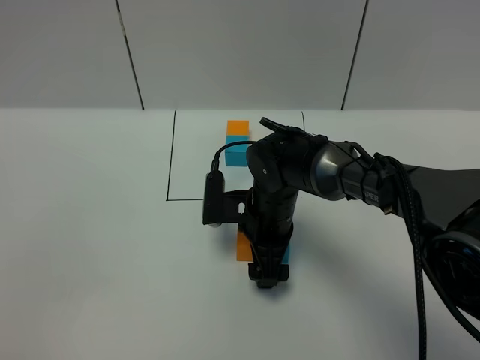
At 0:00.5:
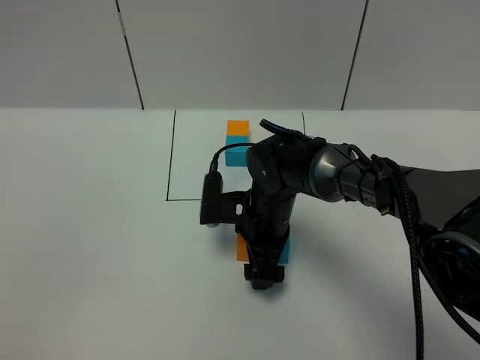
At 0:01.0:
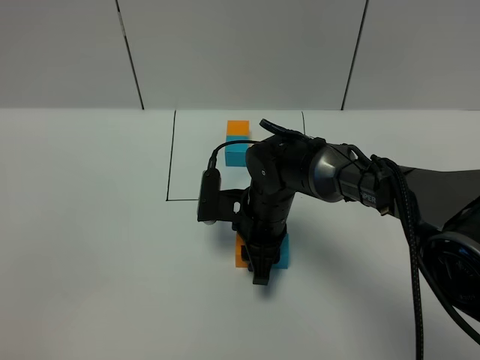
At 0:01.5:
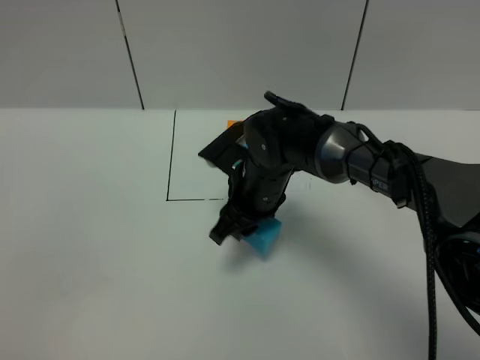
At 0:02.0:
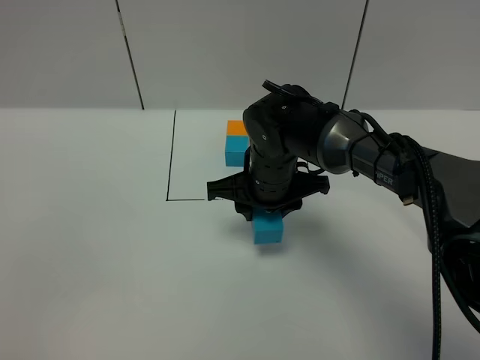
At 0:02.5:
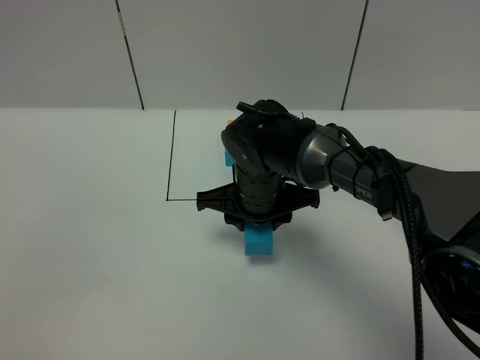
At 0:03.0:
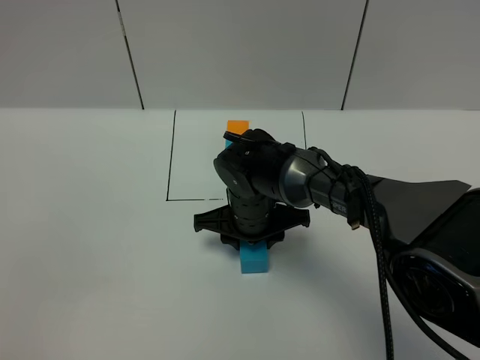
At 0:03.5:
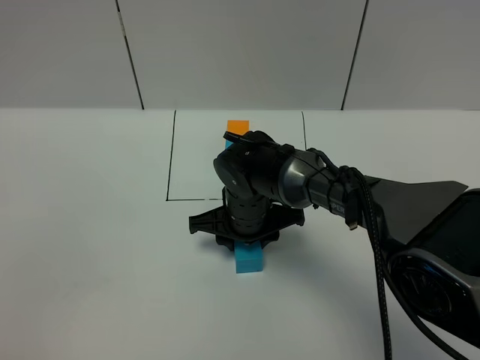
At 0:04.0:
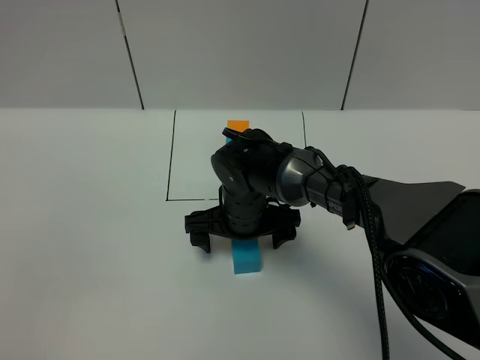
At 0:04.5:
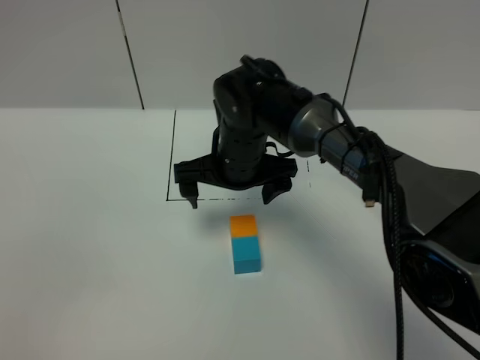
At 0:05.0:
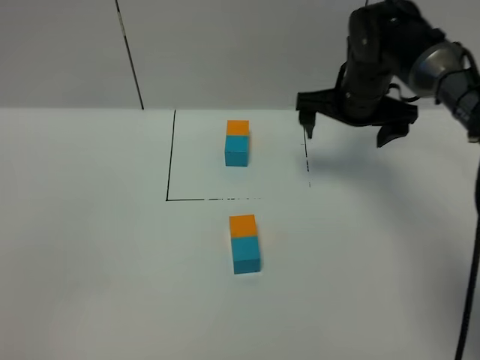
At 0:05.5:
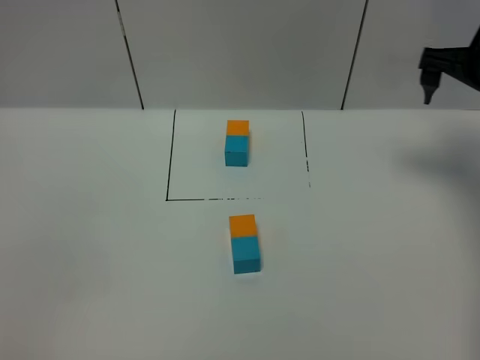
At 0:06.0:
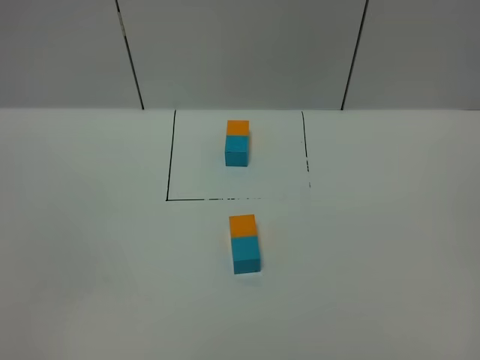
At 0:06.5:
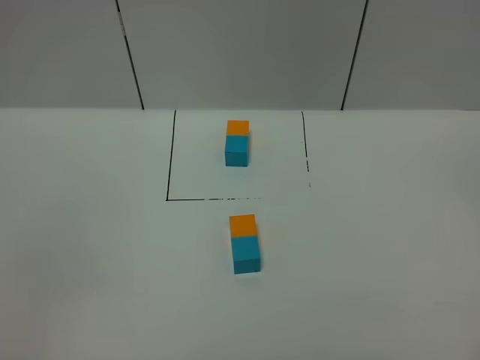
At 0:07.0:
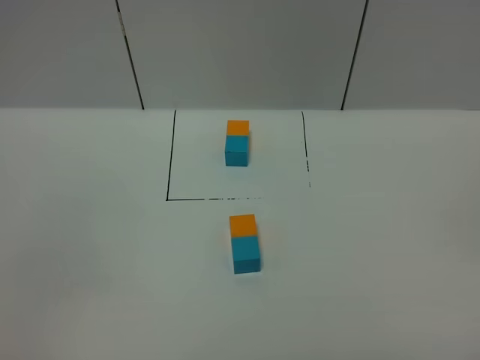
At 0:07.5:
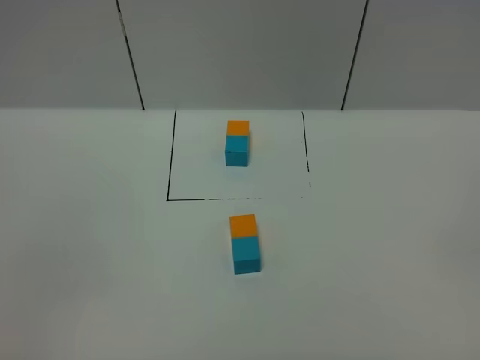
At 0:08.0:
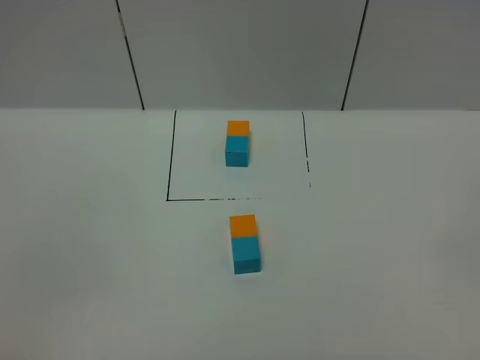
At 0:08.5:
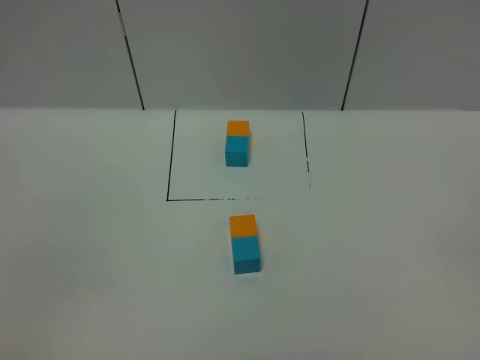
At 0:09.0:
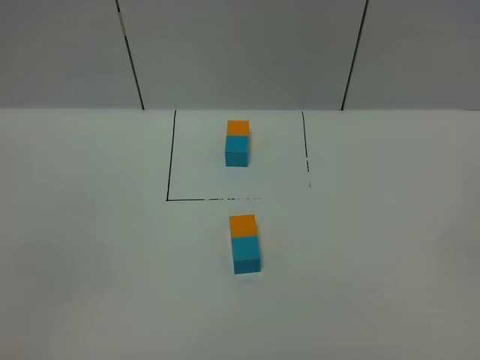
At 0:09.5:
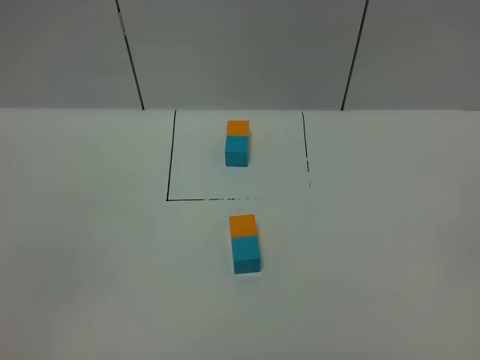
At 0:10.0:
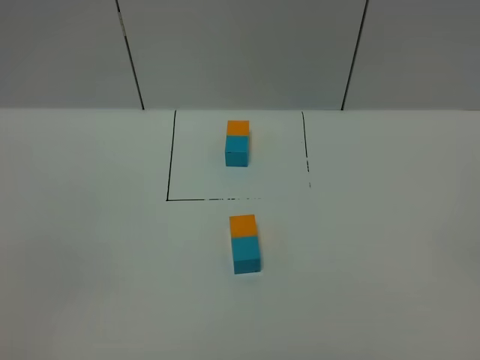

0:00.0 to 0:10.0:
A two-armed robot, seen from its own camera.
Task of the whole recording: According to the building block template in front, assemble the scattered blocks together.
Step, 0:00.0 to 0:04.5: Adjust the pose of the building blocks.
0:00.0 to 0:02.0: The right gripper goes some 5 cm upward, and closes up.
0:02.0 to 0:04.0: The right gripper shifts roughly 5 cm downward, and opens.
0:04.0 to 0:06.0: The right gripper moves to the right and upward, approximately 40 cm.

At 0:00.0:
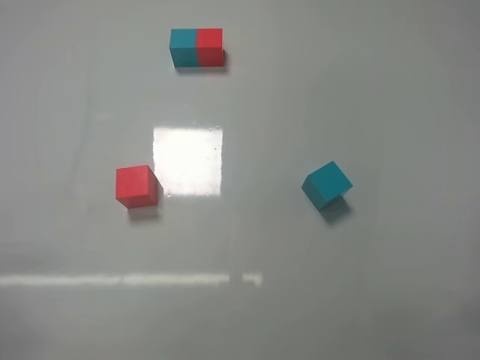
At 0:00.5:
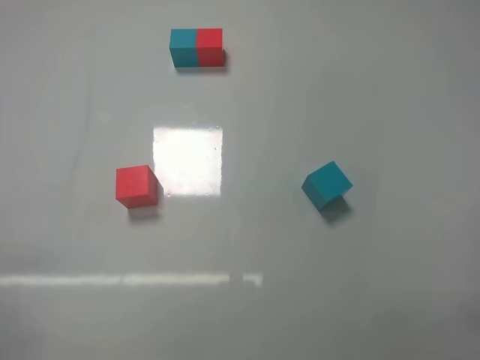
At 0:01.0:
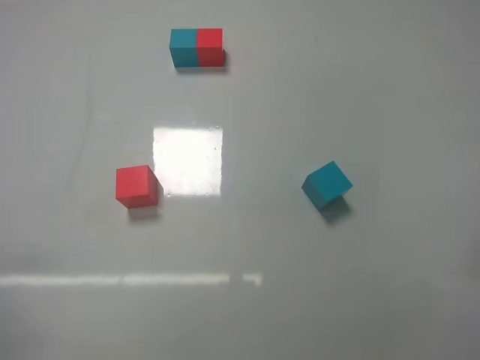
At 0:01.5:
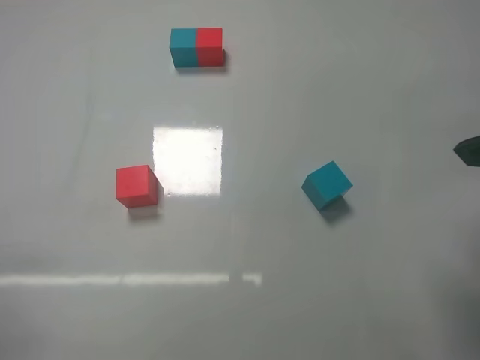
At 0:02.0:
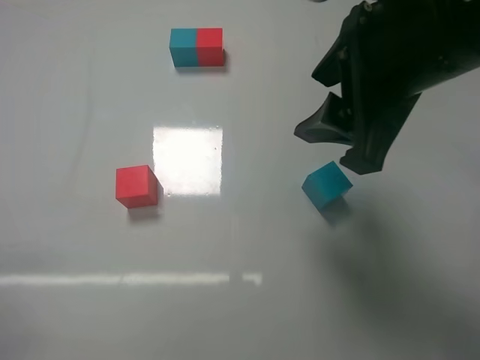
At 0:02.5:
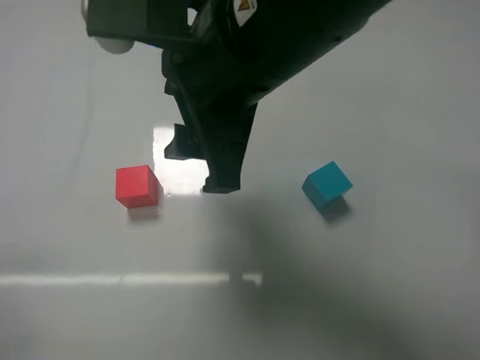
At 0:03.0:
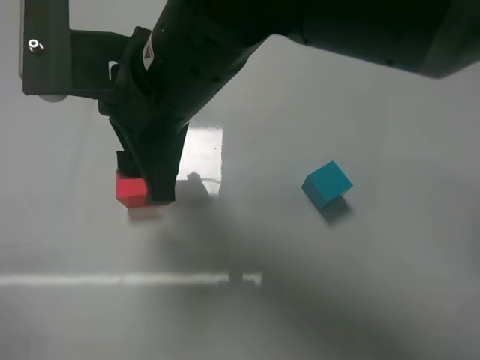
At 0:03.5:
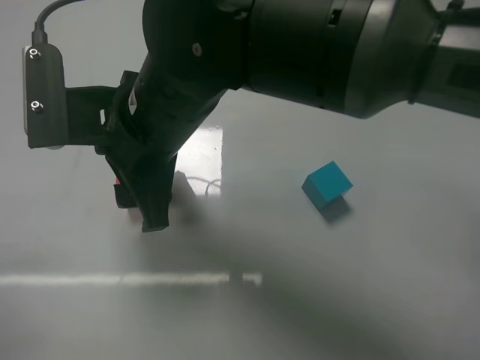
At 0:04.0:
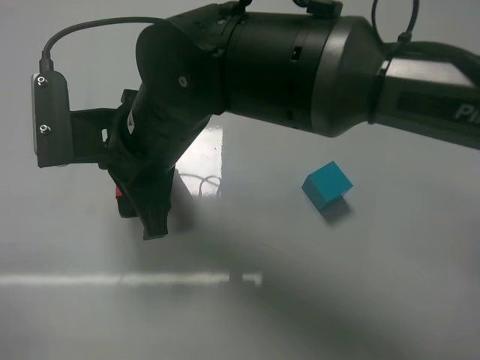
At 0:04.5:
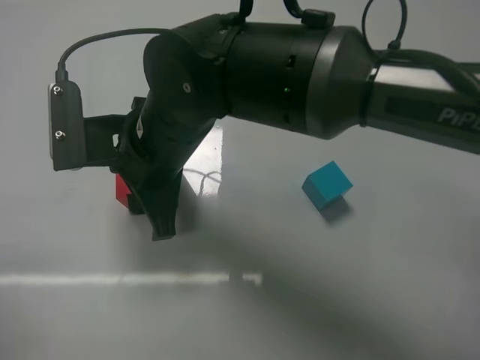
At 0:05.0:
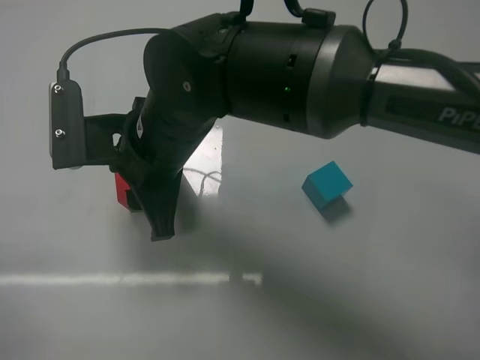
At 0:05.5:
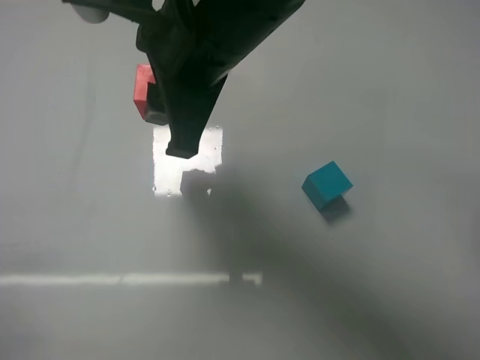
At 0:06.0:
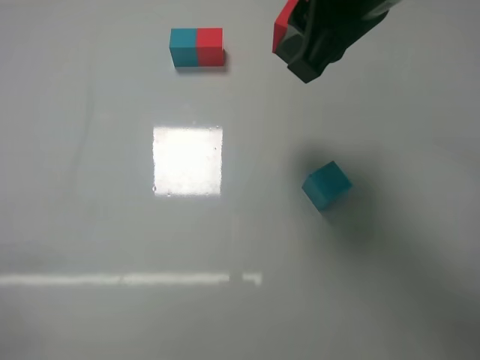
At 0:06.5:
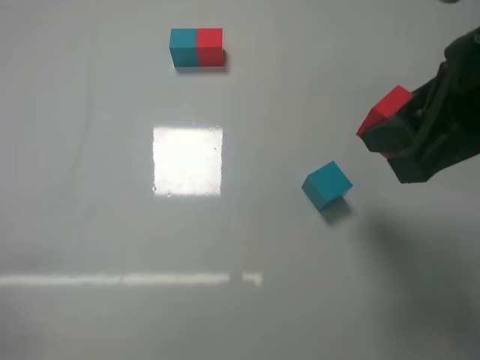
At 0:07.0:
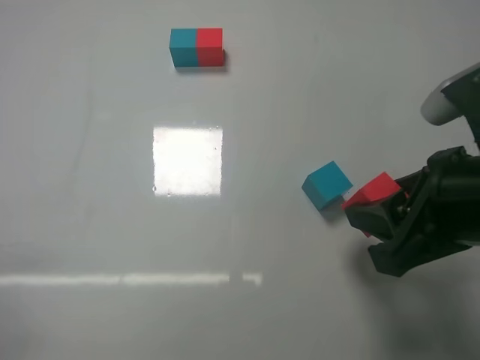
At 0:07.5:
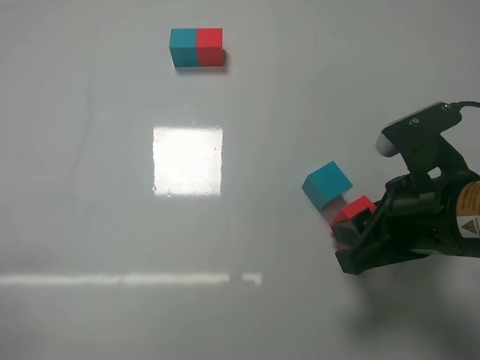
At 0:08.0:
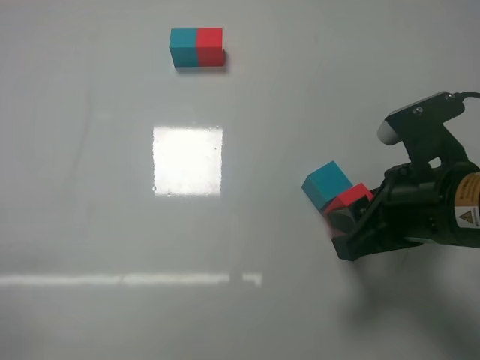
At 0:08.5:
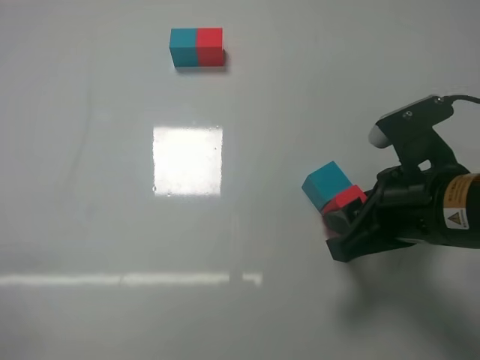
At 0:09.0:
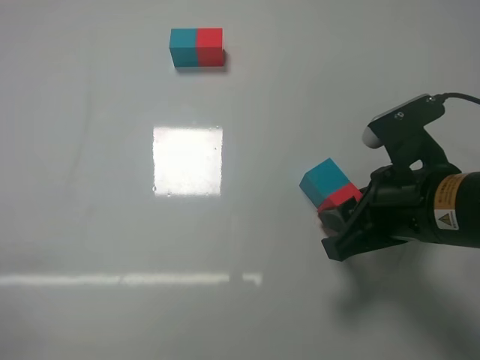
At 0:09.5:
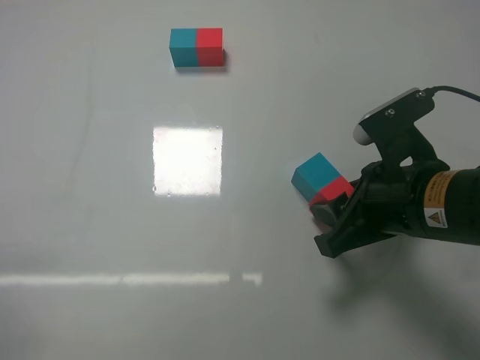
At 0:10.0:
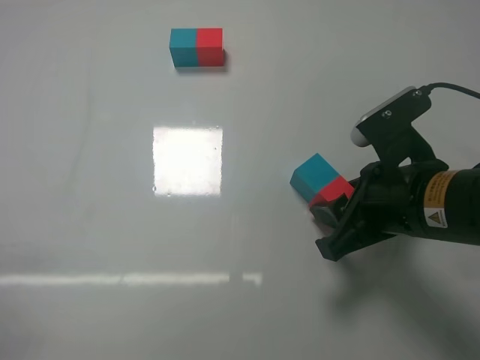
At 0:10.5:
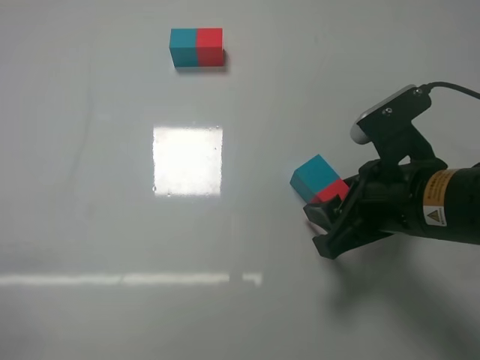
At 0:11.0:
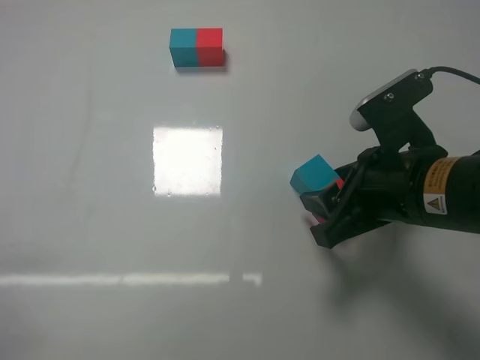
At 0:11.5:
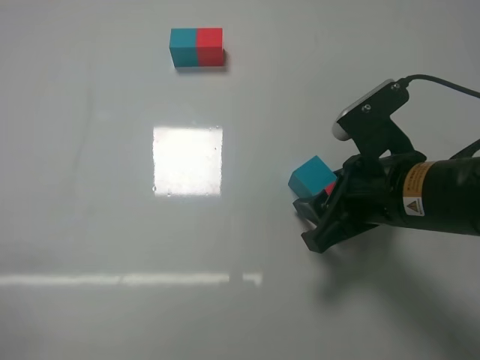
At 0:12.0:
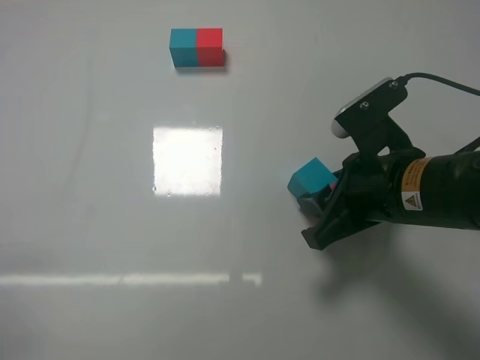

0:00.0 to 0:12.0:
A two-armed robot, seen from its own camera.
Task of the whole recording: According to the building block template in front, assemble the scattered blocks together.
Step, 0:00.0 to 0:04.5: Grasp the red block with right gripper.
Step, 0:05.0 to 0:10.5: Put the red cube on the right of the blue cube with the right gripper.
0:00.0 to 0:02.0: The right gripper shifts about 30 cm to the left, forward and upward.
0:02.0 to 0:04.0: The right gripper shifts approximately 20 cm to the left and downward.
0:04.0 to 0:06.0: The right gripper shifts roughly 25 cm to the right and upward, and closes.
0:06.0 to 0:08.0: The right gripper moves downward, some 15 cm.
0:08.0 to 0:10.0: There are only small adjustments of the grippers.
0:10.0 to 0:12.0: The right gripper opens, then closes once more.

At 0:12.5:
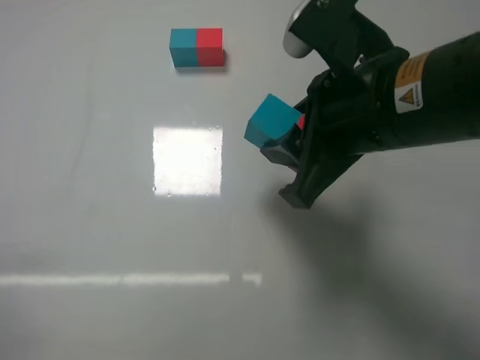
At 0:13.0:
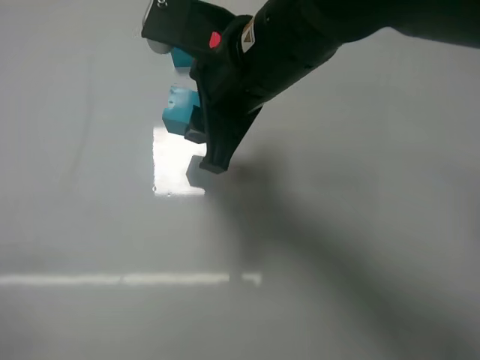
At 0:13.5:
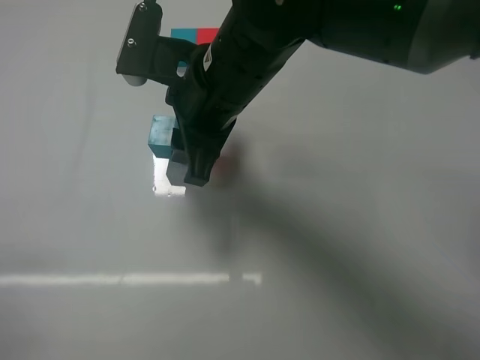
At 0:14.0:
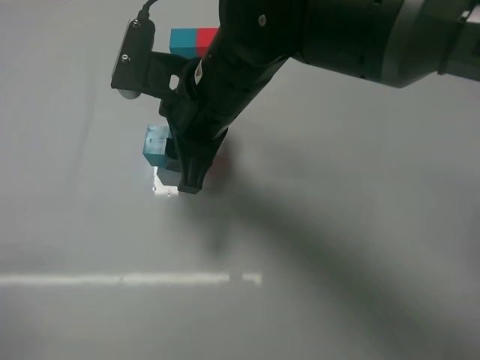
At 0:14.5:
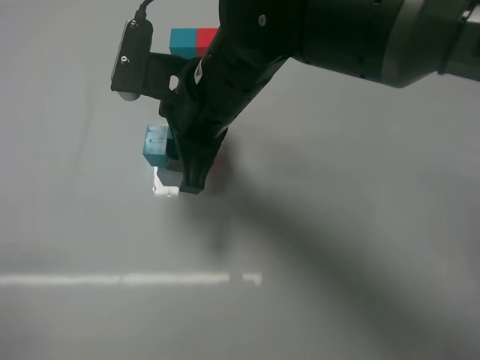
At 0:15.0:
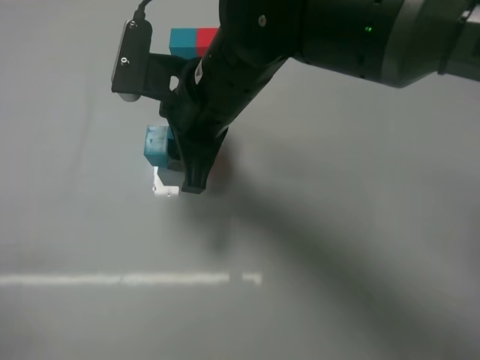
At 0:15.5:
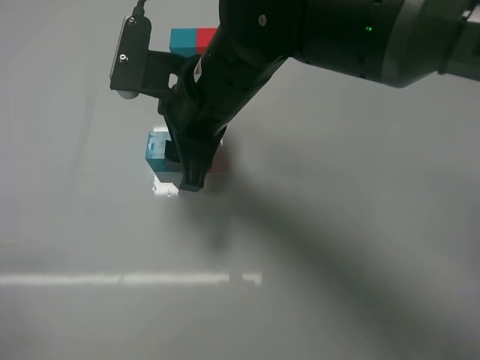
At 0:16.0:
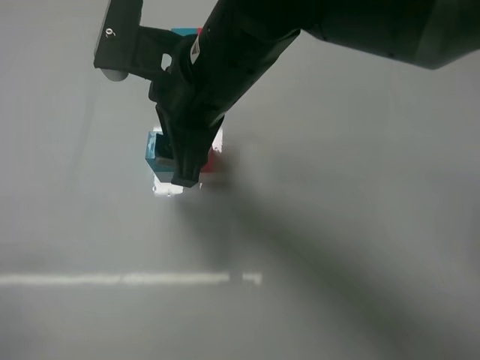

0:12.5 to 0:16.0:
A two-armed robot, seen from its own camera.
Task of the whole recording: According to the building block template in front, assemble the scattered blocks together.
Step, 0:12.5 to 0:15.5: Put the red cube and blue cube in the center of the table with the right gripper.
0:12.5 to 0:14.5: The right gripper moves to the left and forward, roughly 15 cm.
0:14.5 to 0:16.0: The right gripper opens up.
